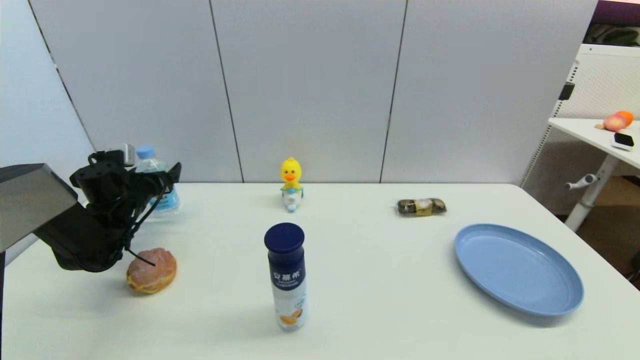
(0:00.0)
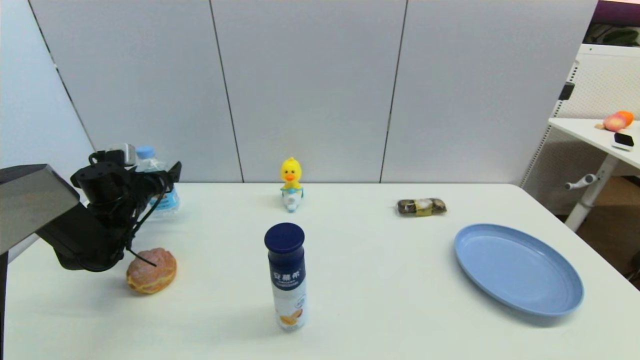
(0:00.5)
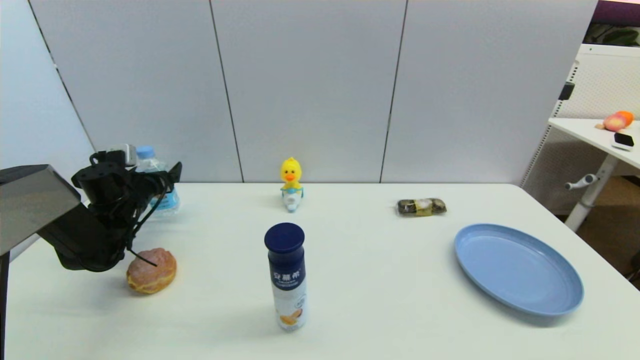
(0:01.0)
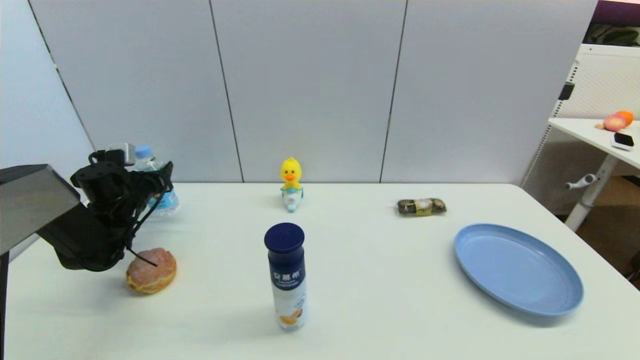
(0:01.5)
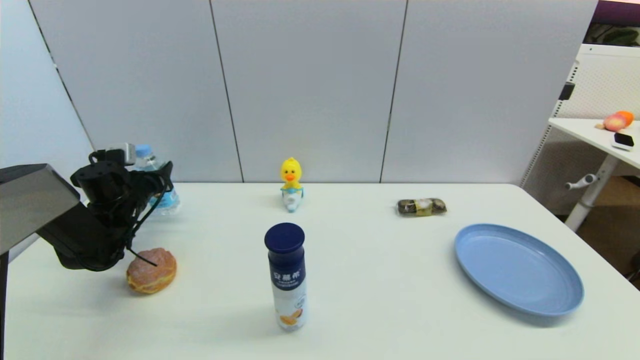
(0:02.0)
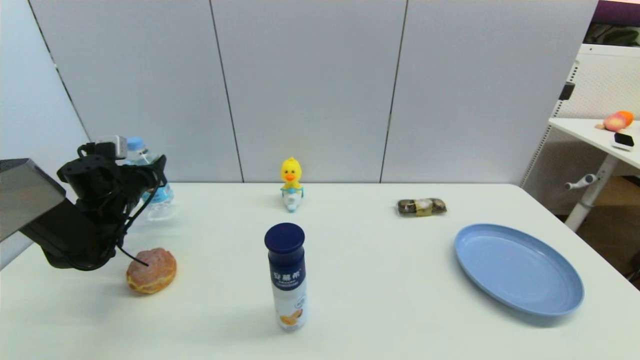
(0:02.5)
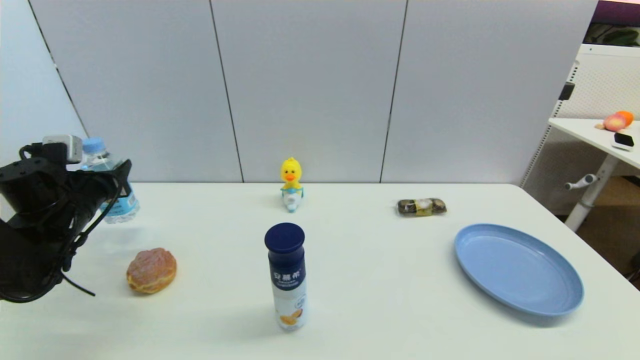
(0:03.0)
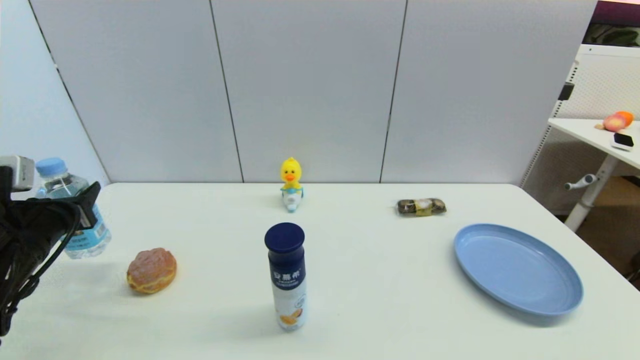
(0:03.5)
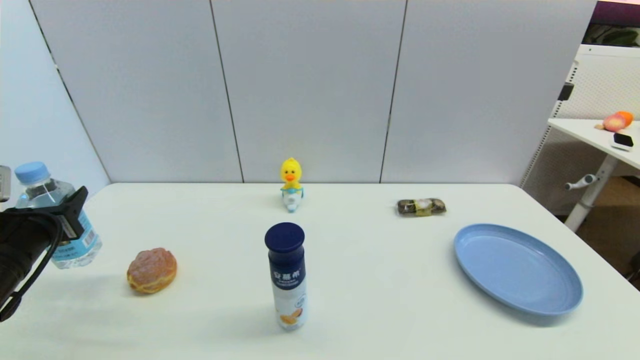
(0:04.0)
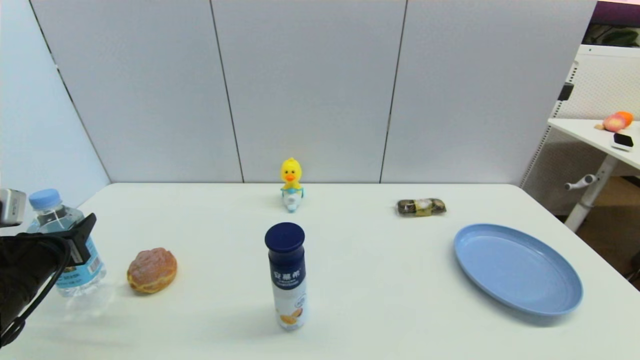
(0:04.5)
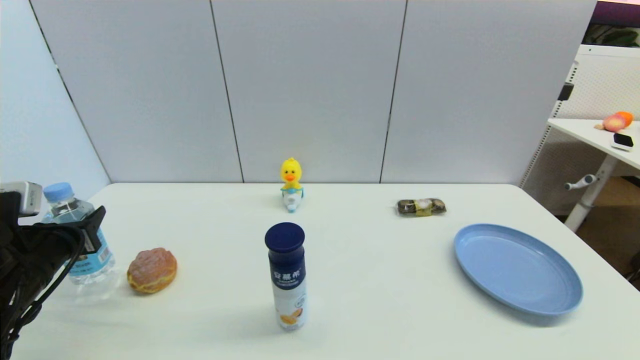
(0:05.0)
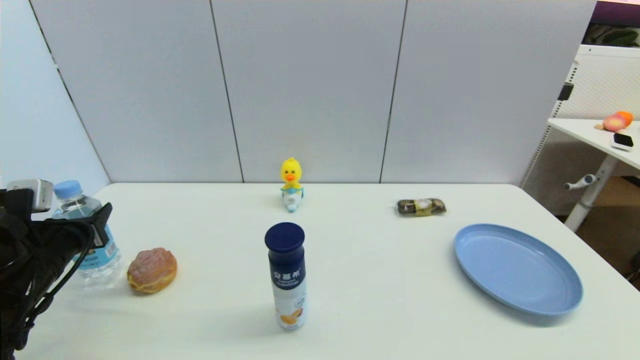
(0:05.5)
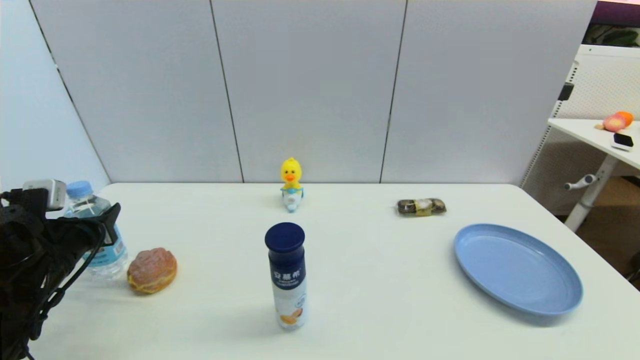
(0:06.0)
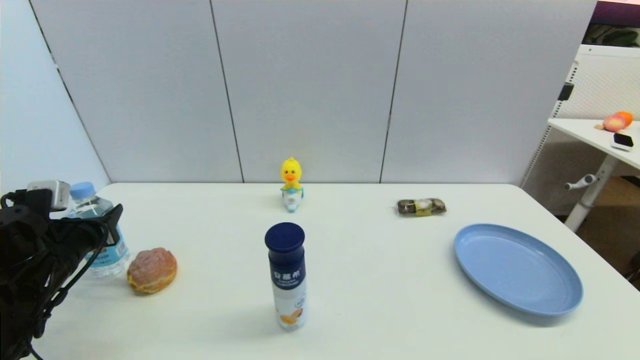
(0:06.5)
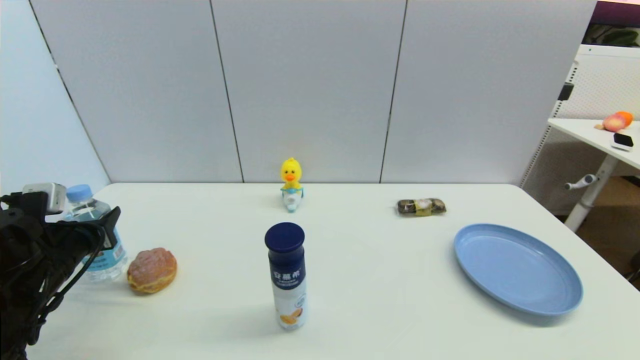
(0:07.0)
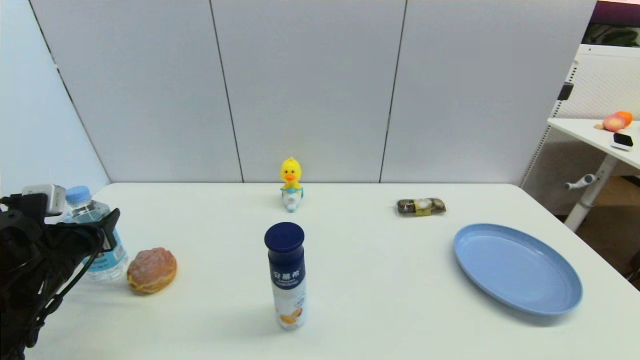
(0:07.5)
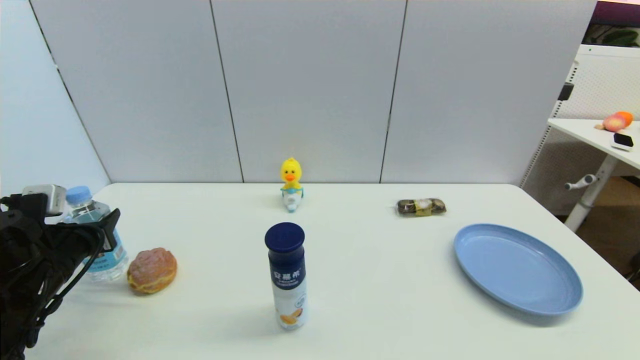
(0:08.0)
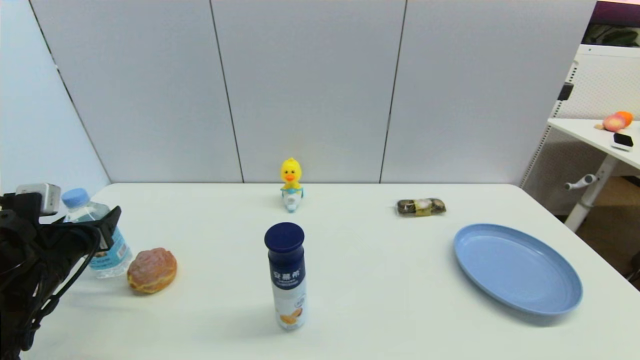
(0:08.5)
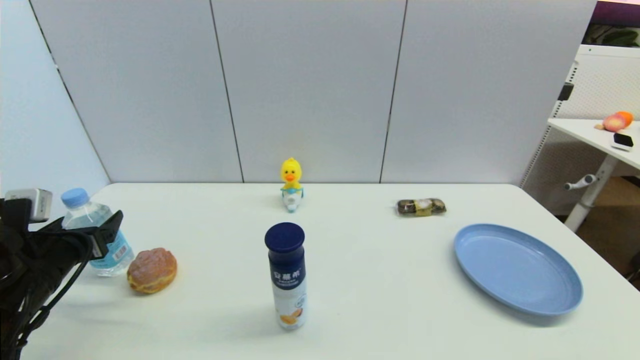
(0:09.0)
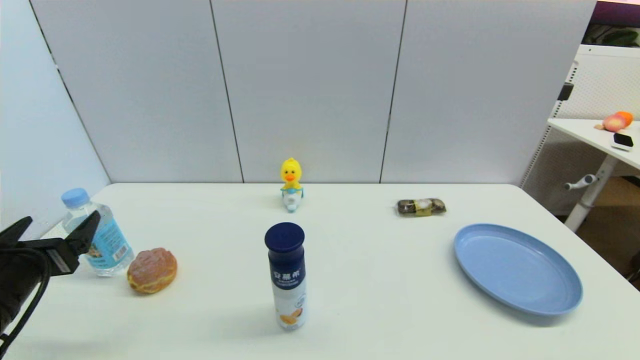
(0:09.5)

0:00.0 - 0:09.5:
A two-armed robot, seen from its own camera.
Step, 0:02.5 - 0:08.5: Place the soda water on the table with left gripper.
0:00.0 - 0:02.0: The left gripper closes.
0:02.0 - 0:04.0: The left gripper shifts about 20 cm backward.
0:04.0 - 0:05.5: The left gripper shifts by some 5 cm.
0:05.5 - 0:07.5: The grippers make only small movements.
0:07.5 - 0:09.5: The left gripper moves backward, some 10 cm, and opens its fingers.

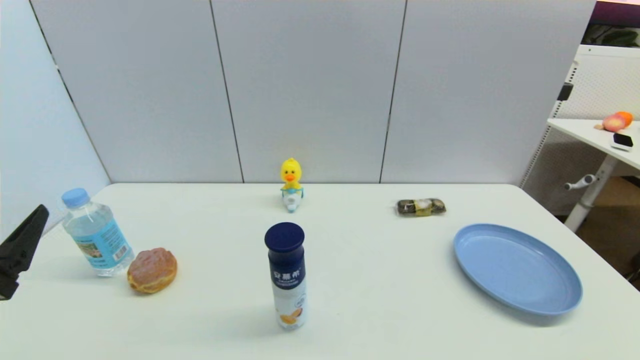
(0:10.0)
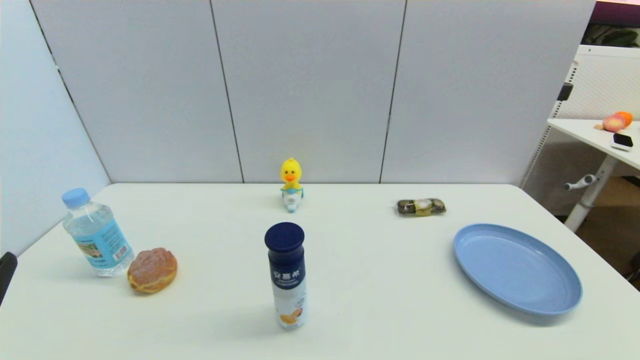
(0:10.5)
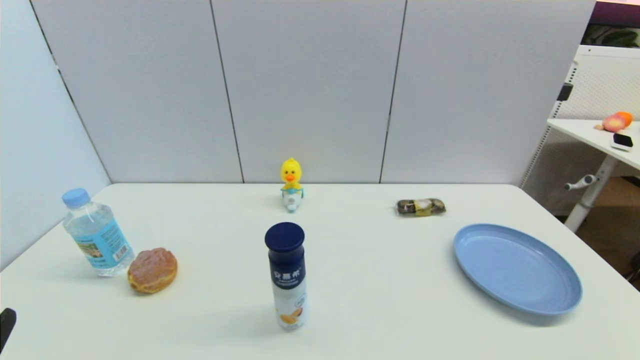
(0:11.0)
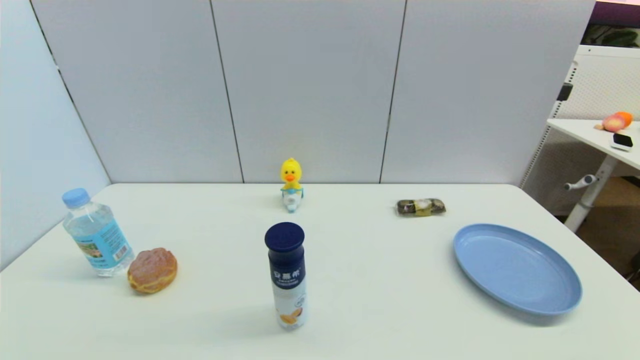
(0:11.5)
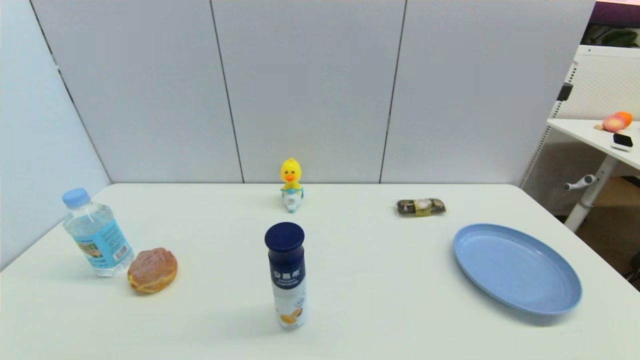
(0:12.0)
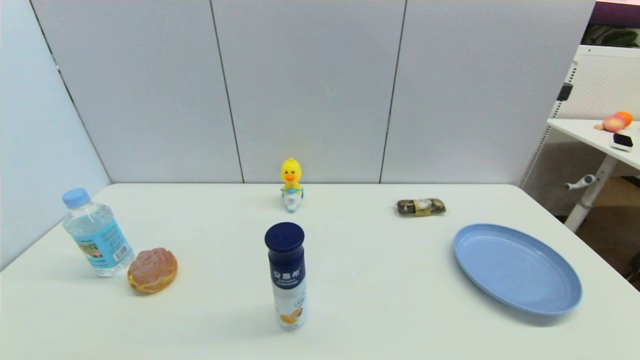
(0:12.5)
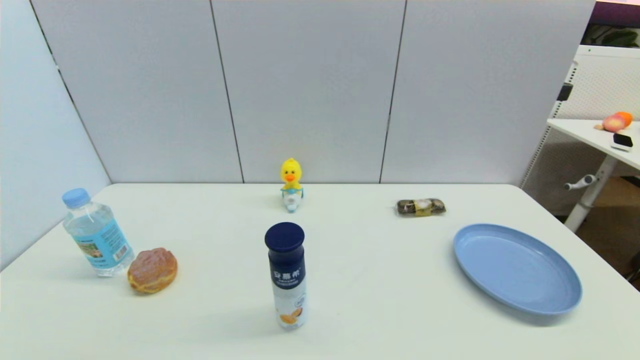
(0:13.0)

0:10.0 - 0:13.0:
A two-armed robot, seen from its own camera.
0:10.0 - 0:11.5: The left gripper travels backward and downward by some 15 cm.
